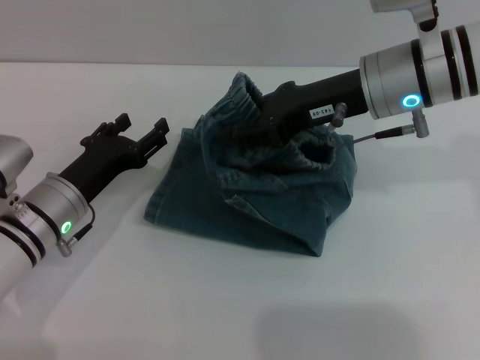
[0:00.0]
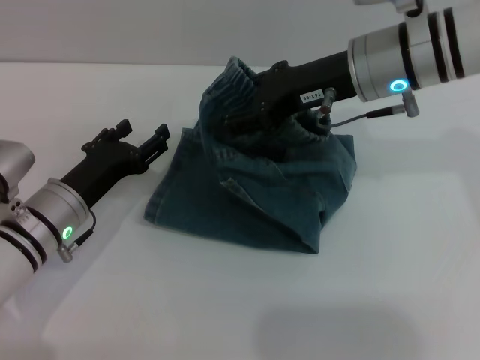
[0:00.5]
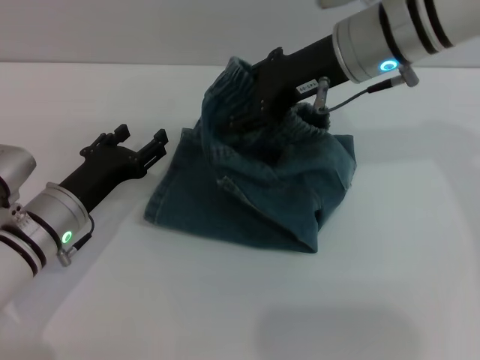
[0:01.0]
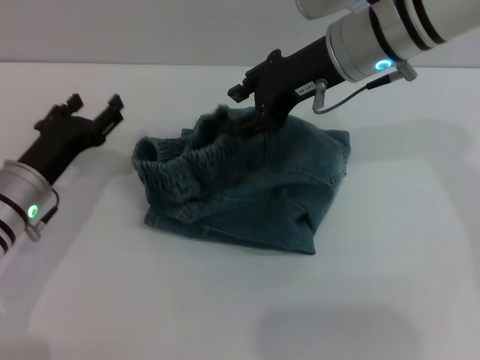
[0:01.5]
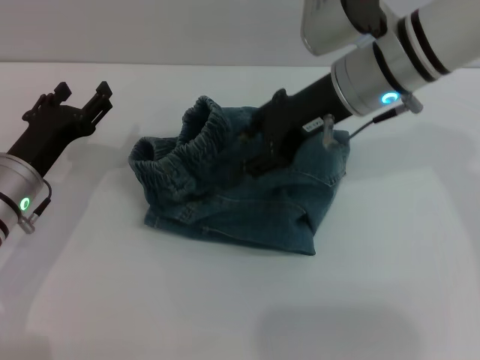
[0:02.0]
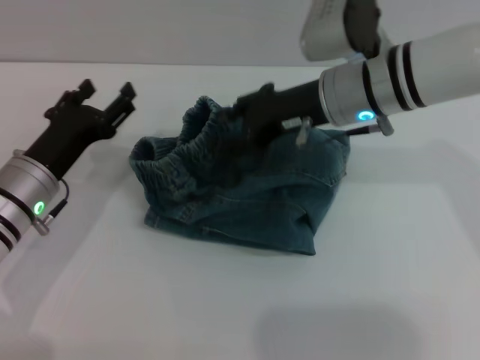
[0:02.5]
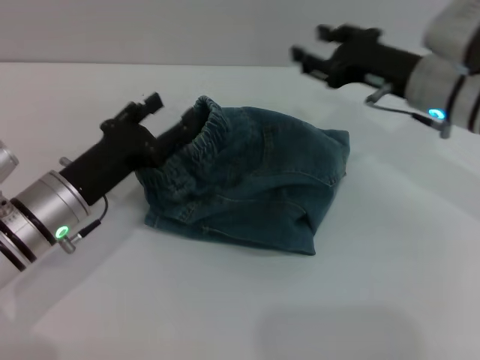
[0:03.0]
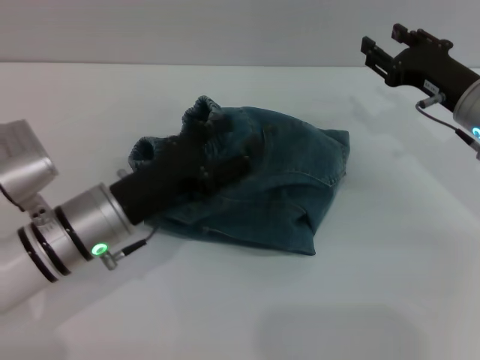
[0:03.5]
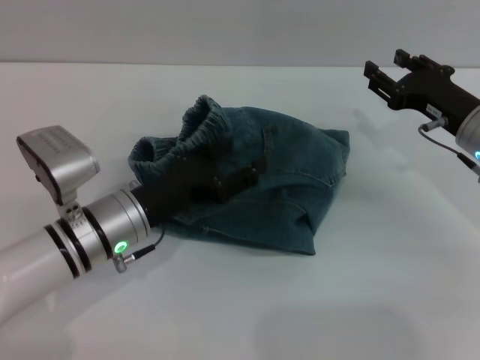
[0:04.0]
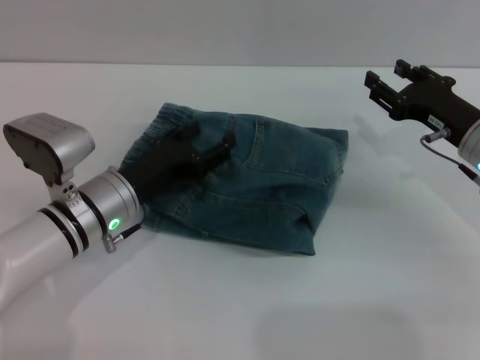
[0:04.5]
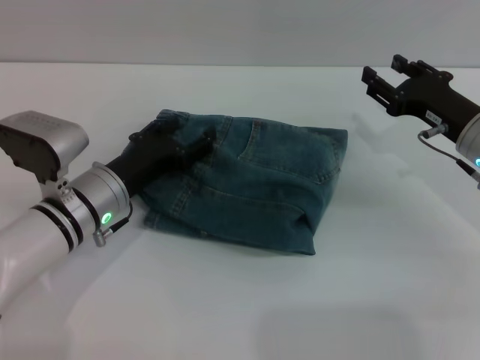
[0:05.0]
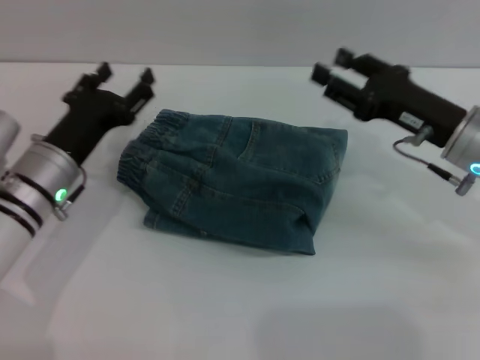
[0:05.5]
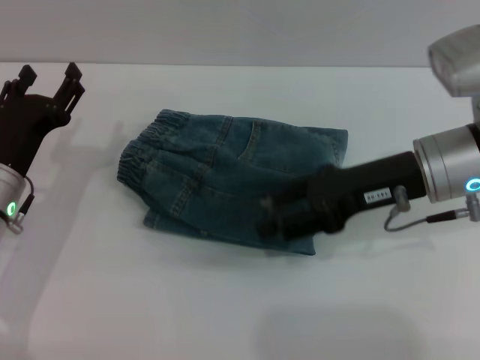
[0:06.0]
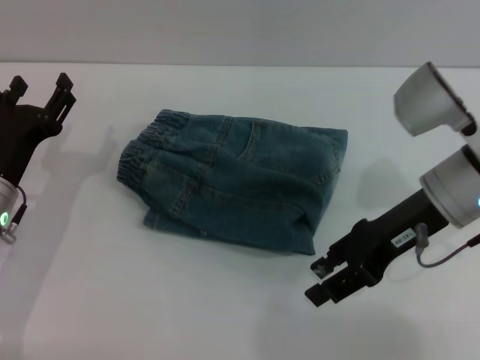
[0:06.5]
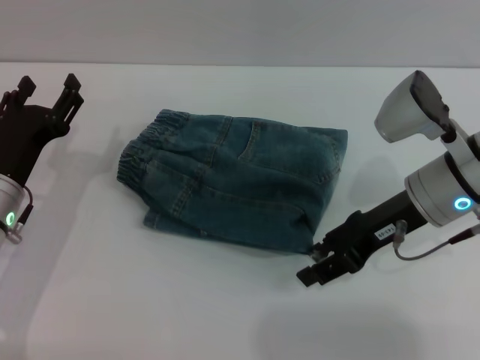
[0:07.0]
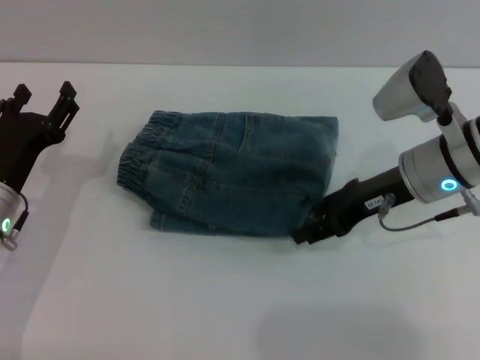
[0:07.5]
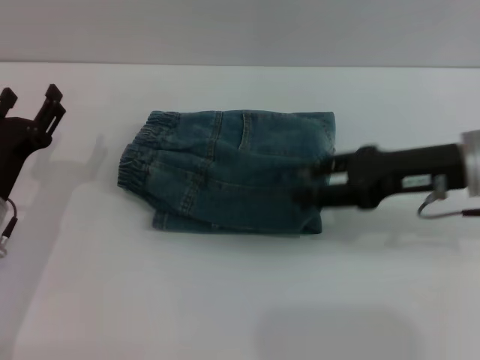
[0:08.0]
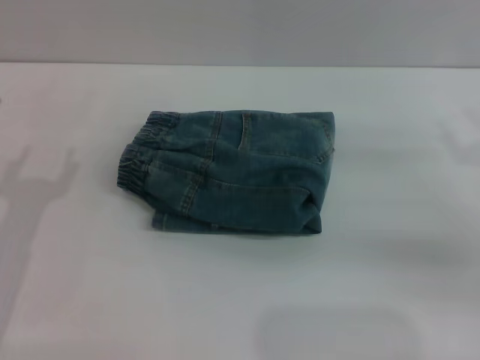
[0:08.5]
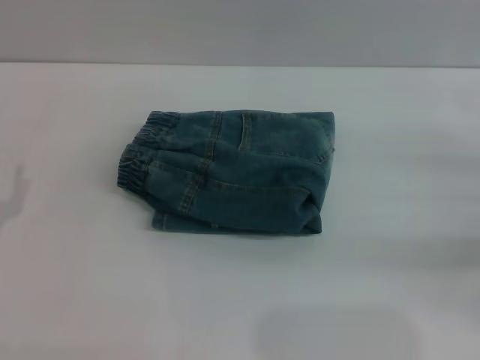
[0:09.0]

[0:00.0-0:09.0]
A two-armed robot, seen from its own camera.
Step, 0:02.0 to 0:07.5: Place the folded trousers onto the center area with right gripper.
0:00.0 to 0:02.0: The right gripper opens its fingers.
0:02.0 to 0:04.5: The left gripper travels to the right by roughly 10 cm. Meanwhile the right gripper moves to the right and downward, roughly 20 cm.
0:04.5 to 0:07.0: Both grippers move to the left, about 10 cm.
0:07.0 to 0:09.0: The left gripper is displaced backward and to the left by about 10 cm. Meanwhile the right gripper goes about 20 cm to the right.

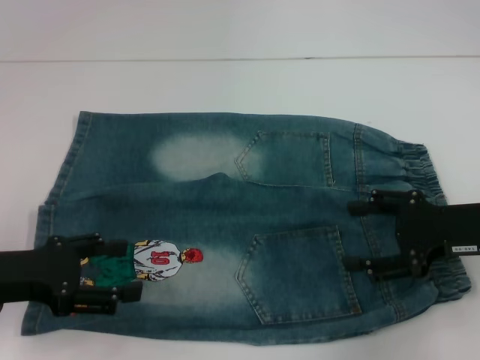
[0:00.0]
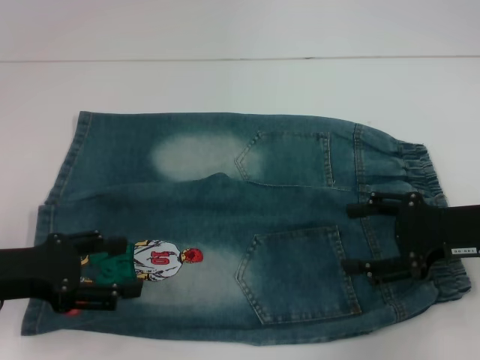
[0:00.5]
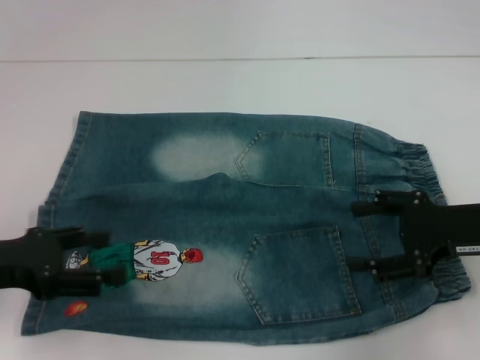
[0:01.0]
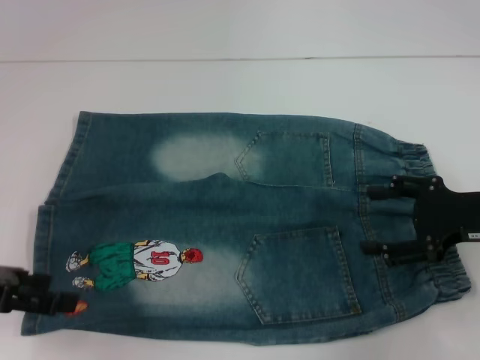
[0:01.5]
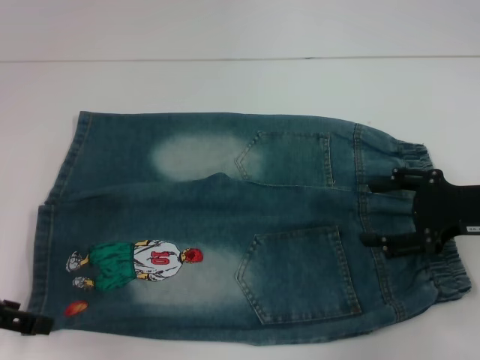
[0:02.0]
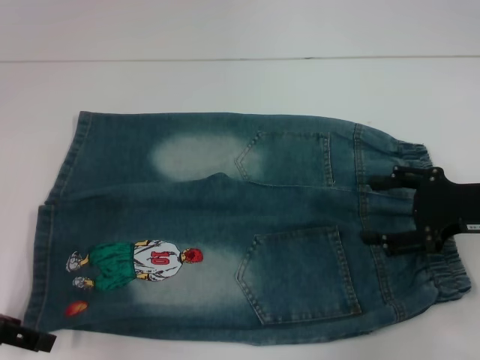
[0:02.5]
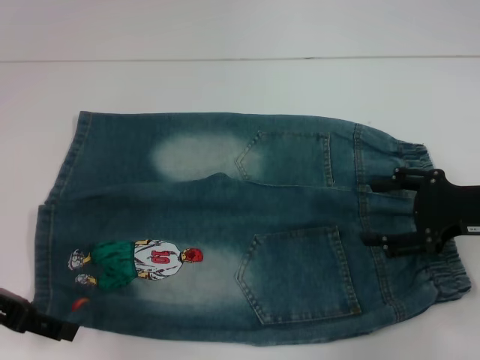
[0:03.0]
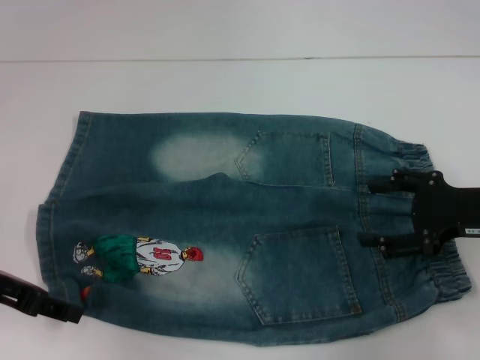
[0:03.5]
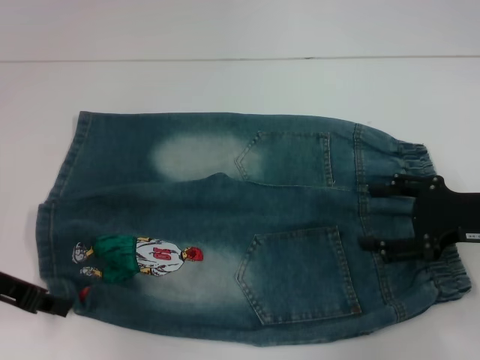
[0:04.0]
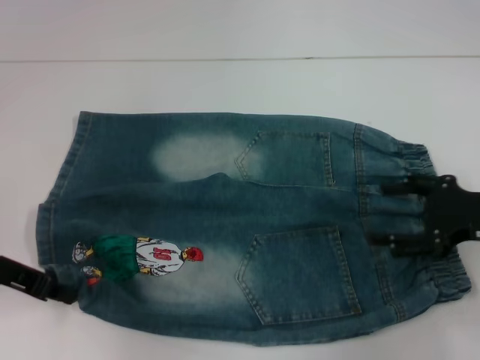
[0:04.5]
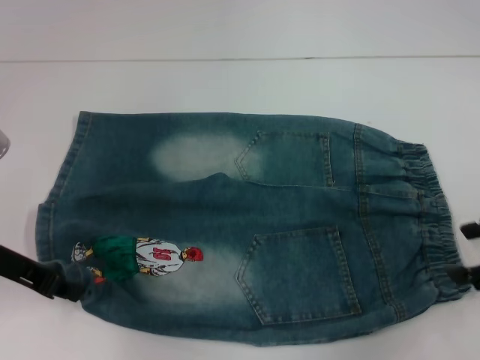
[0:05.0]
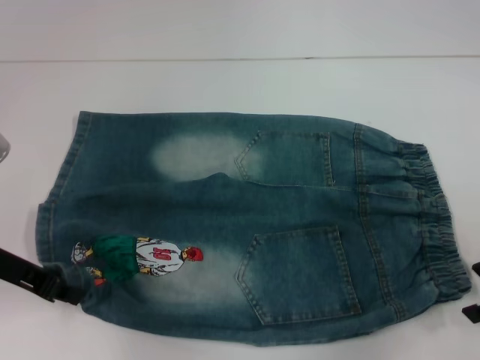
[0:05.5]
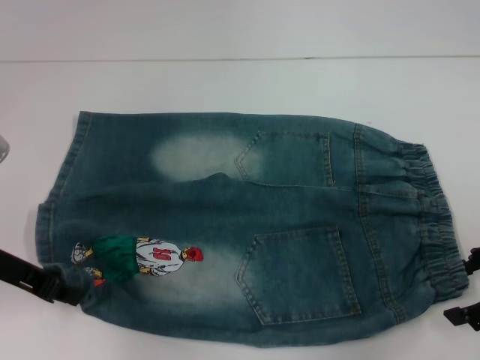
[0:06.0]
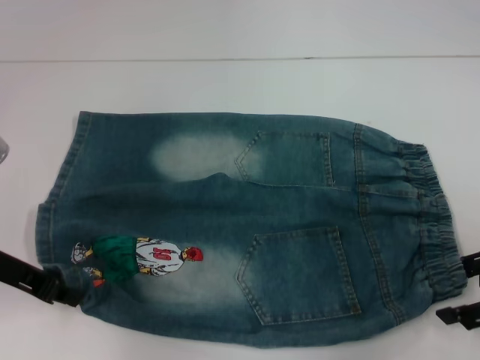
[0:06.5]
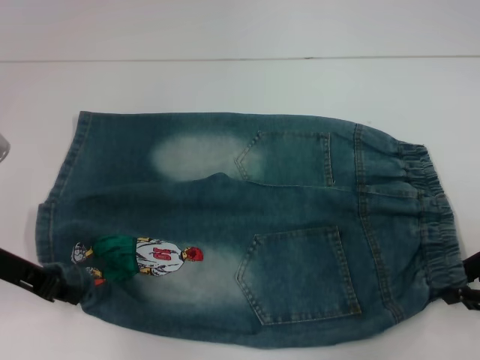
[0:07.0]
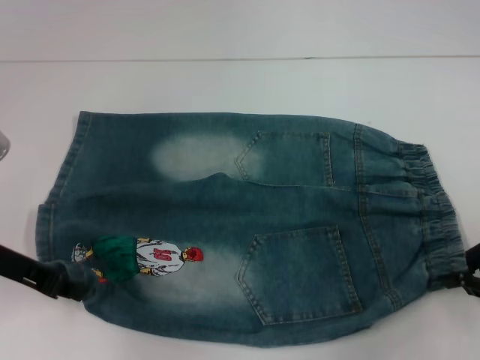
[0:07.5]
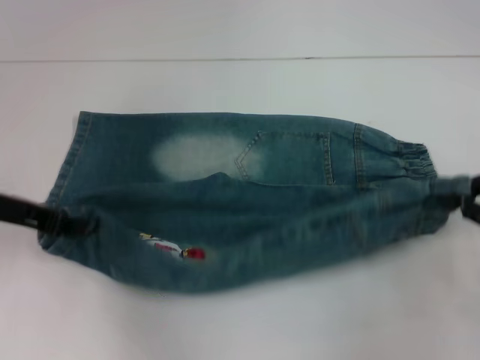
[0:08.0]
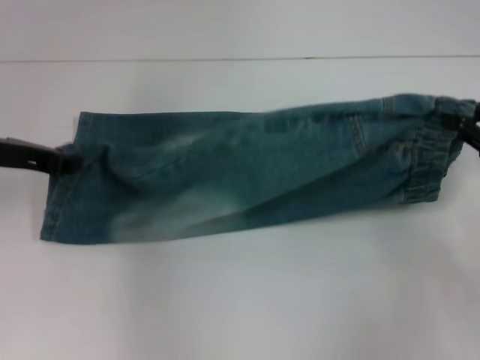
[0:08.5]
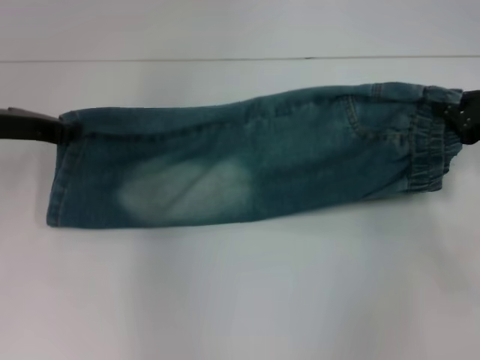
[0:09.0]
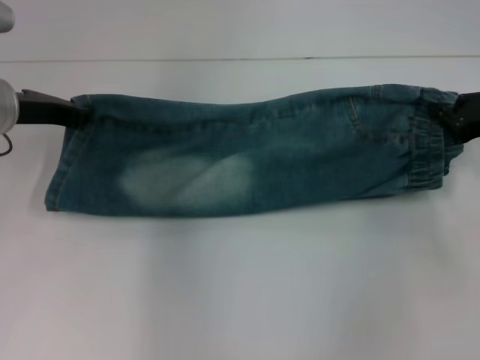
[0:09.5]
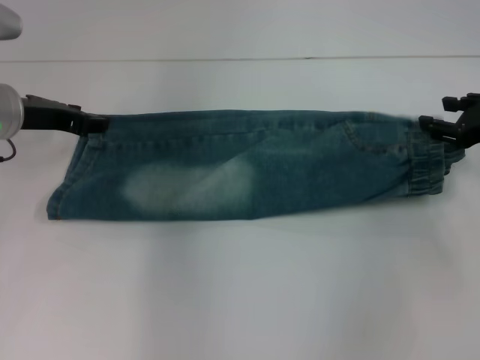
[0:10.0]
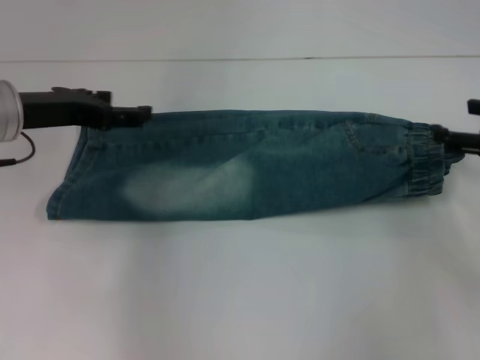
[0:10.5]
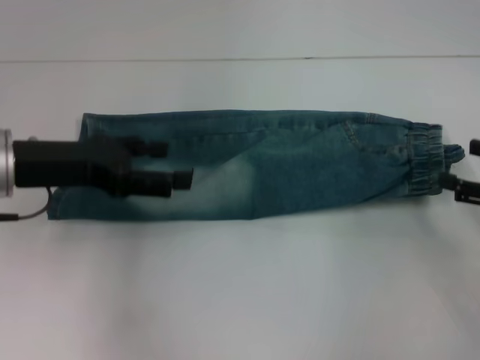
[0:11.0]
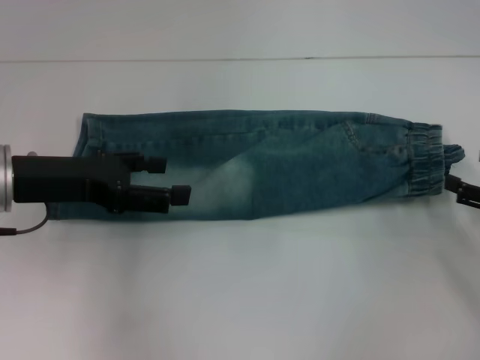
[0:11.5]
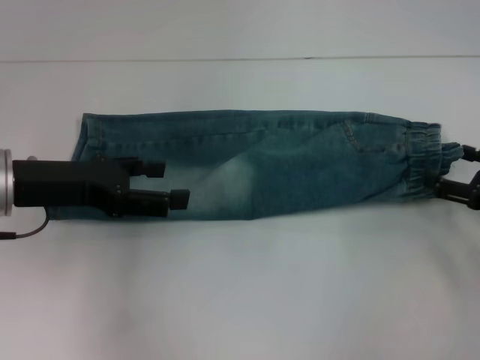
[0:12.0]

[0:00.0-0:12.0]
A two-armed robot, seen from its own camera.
Step, 0:00.0 to 0:04.5: Grab the lower left pant leg with your left hand.
Step, 0:05.0 to 0:07.0: Hold the lower right waistband with your right hand.
Step, 0:07.5 to 0:09.5: Fold upward with your left hand.
0:02.0 to 0:04.0: The left gripper closes.
0:04.0 to 0:06.0: The left gripper closes its fingers.
0:06.0 to 0:08.0: The right gripper closes its fingers.
0:08.0 to 0:10.0: The two grippers go roughly 5 cm forward. The right gripper opens.
0:10.0 to 0:12.0: The right gripper is displaced backward and downward by approximately 10 cm, and opens; the left gripper heads backward, covering approximately 10 cm, and opens up.

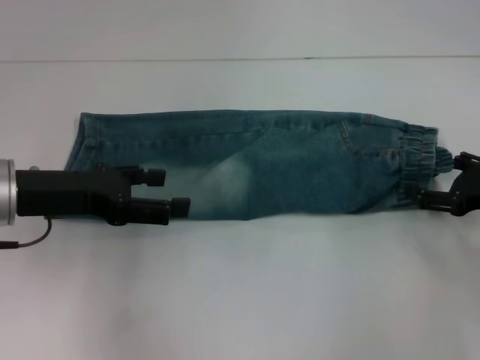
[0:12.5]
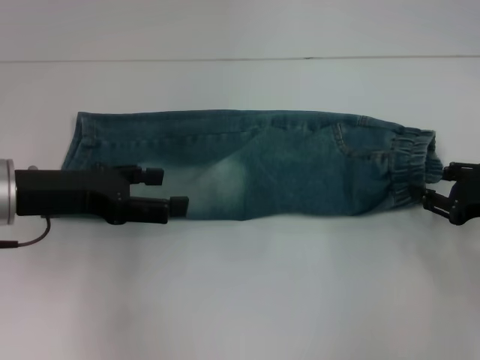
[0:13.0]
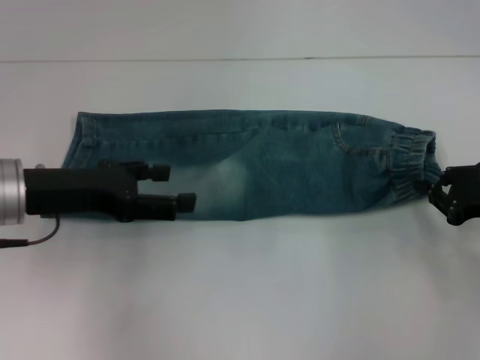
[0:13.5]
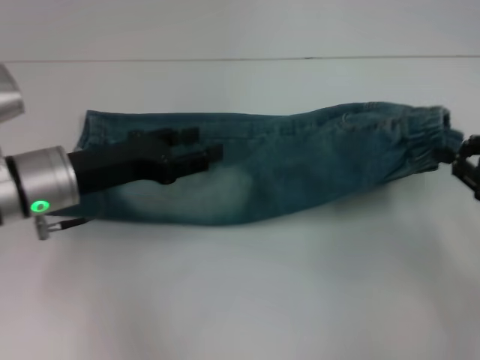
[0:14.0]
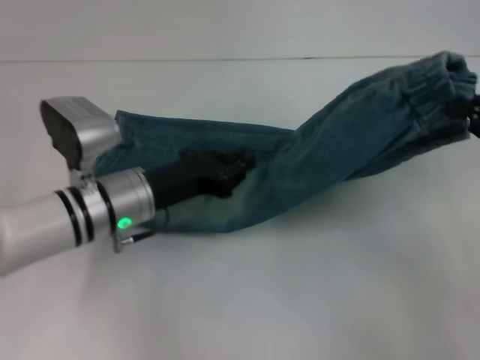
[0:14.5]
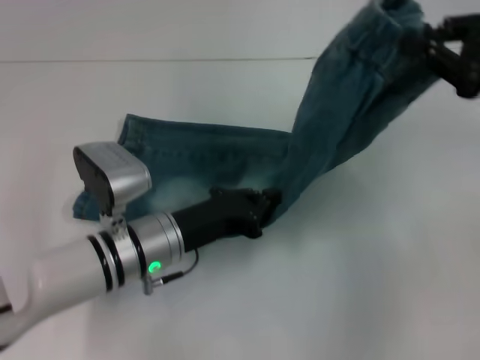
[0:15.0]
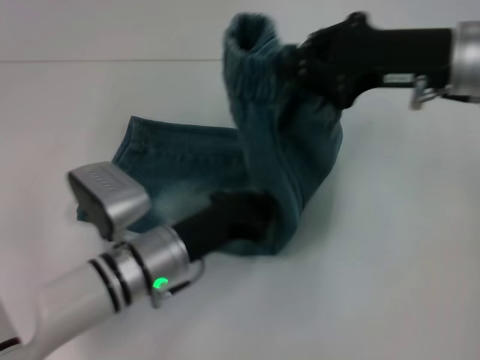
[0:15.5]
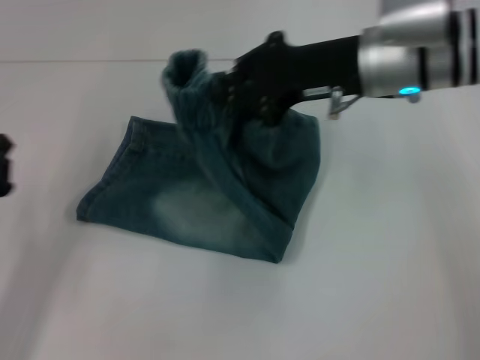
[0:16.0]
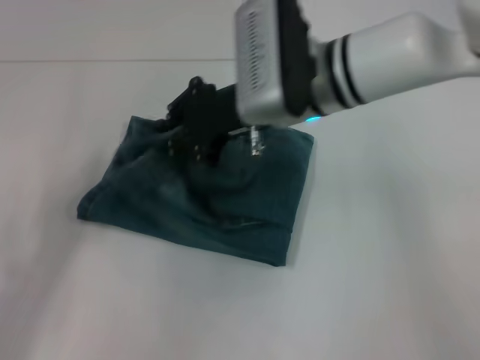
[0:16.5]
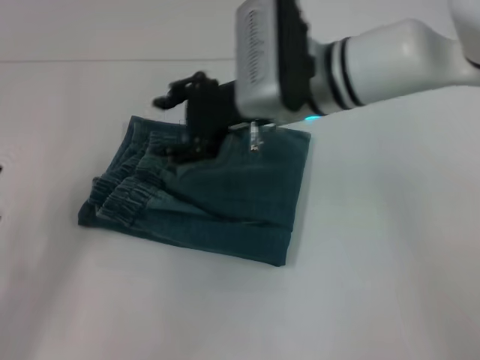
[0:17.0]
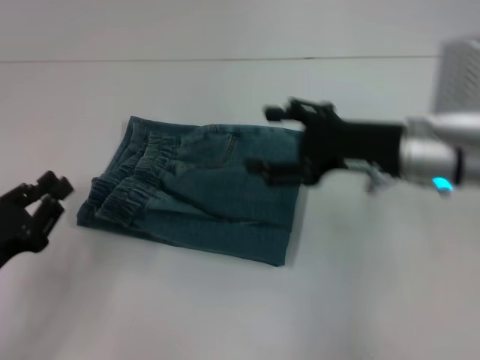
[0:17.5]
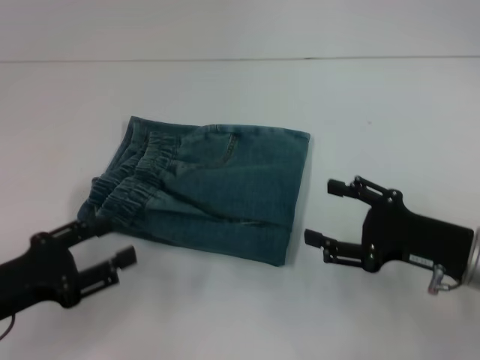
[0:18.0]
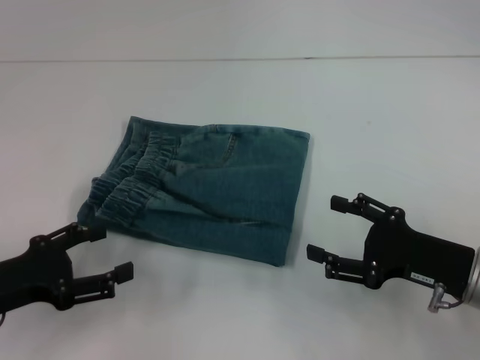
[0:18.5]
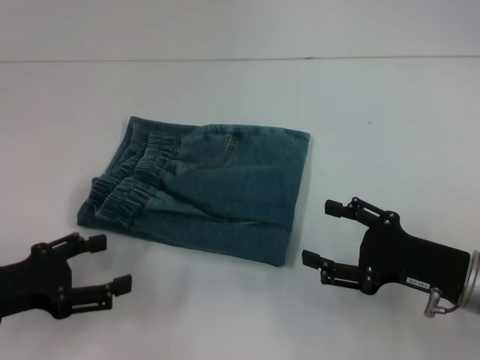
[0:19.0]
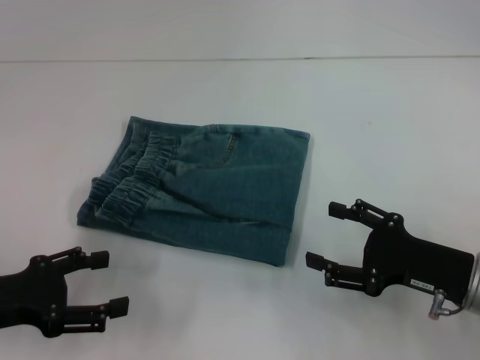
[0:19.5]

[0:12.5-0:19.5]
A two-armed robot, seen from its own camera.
Step, 0:14.0 to 0:15.0: Press the middle of the pants with your left hand.
Step, 0:15.5 to 0:16.5: Fold to the left with your right hand.
0:12.5 to 0:14.5: The left gripper heads to the right and downward, covering about 15 cm, and closes. The right gripper goes about 10 cm upward, and closes its fingers.
0:14.5 to 0:16.0: The right gripper shifts some 25 cm to the left and forward, while the left gripper moves to the left and backward, about 20 cm, and closes.
0:16.0 to 0:17.5: The right gripper is displaced downward by some 10 cm, and opens up.
0:17.5 to 0:19.5: The right gripper heads backward, downward and to the right, covering roughly 15 cm. The left gripper opens.
